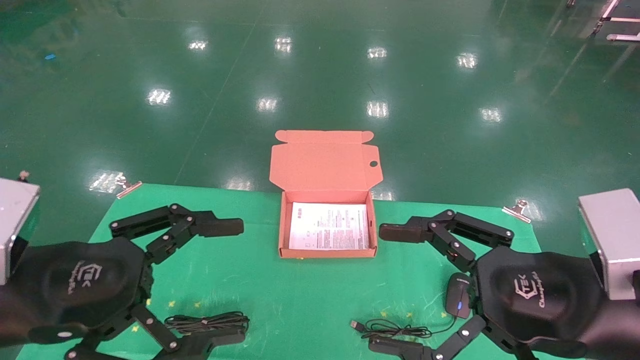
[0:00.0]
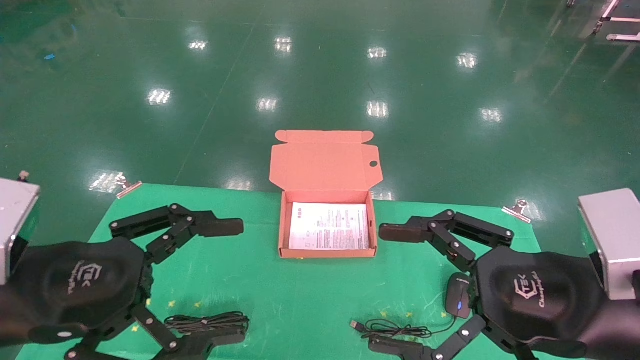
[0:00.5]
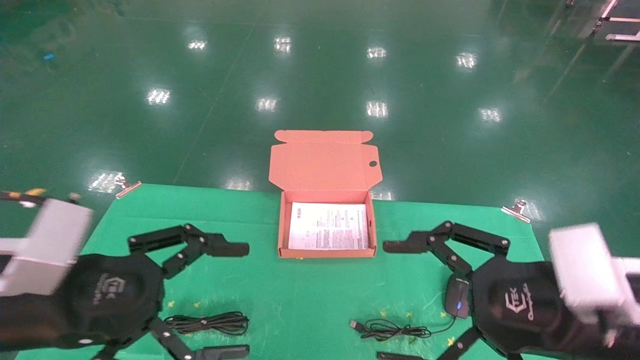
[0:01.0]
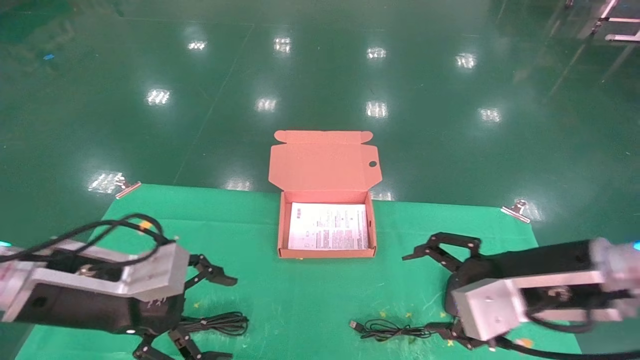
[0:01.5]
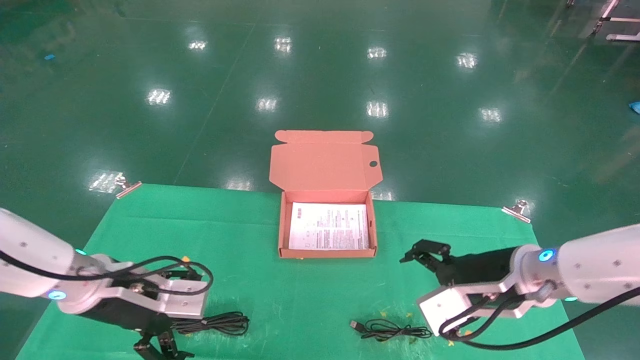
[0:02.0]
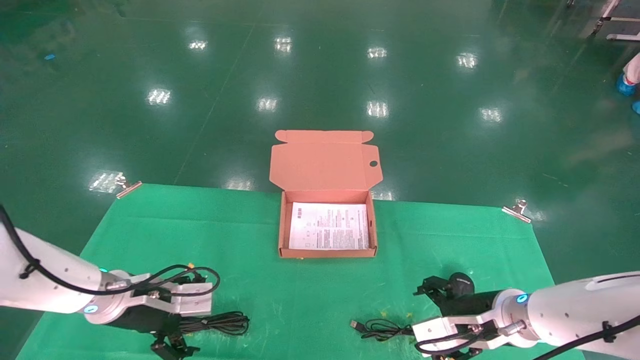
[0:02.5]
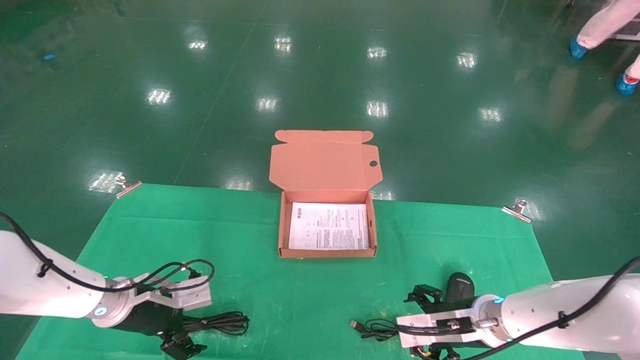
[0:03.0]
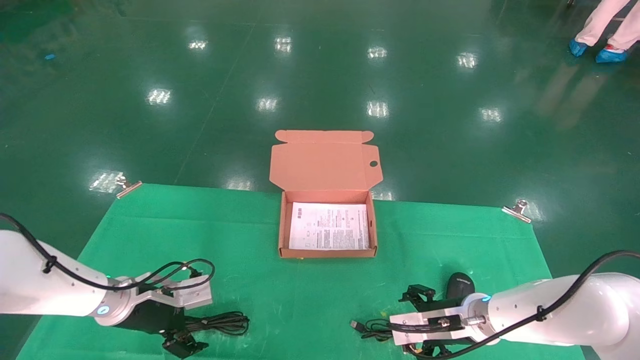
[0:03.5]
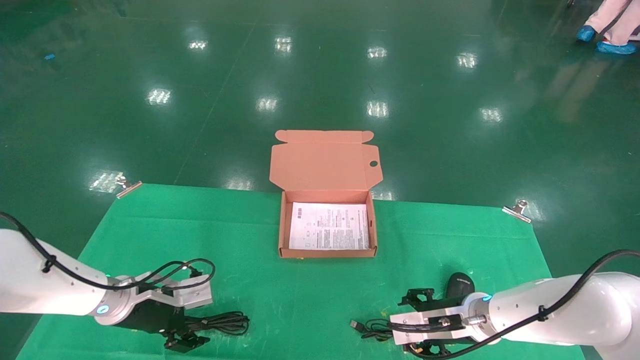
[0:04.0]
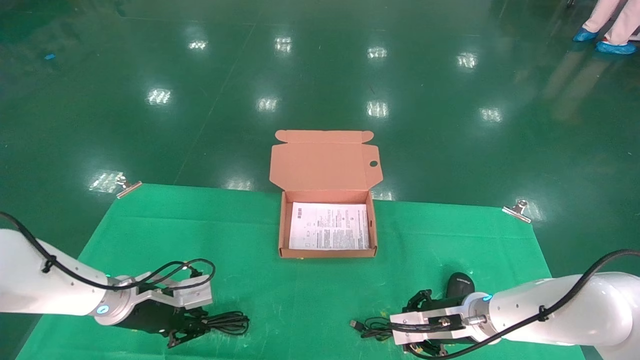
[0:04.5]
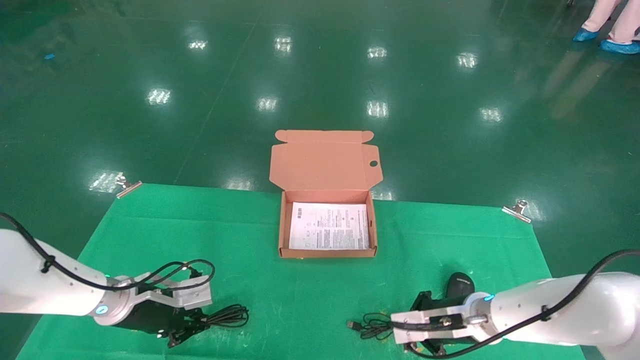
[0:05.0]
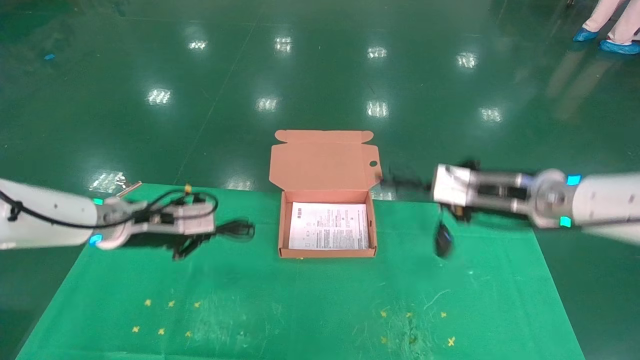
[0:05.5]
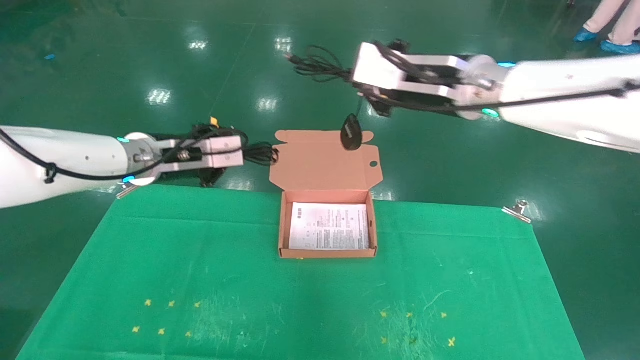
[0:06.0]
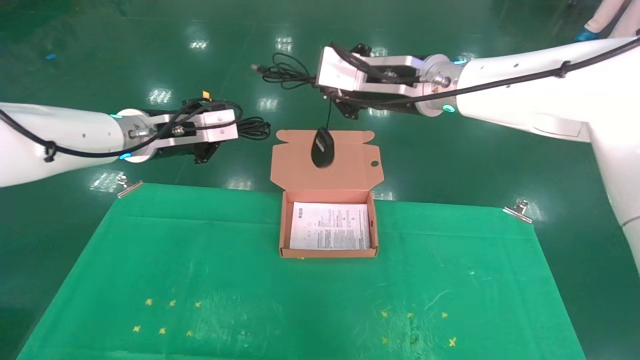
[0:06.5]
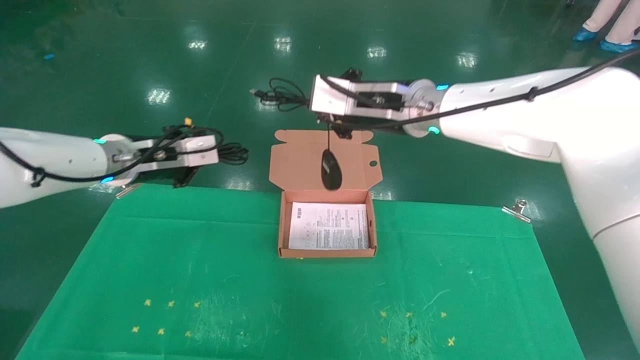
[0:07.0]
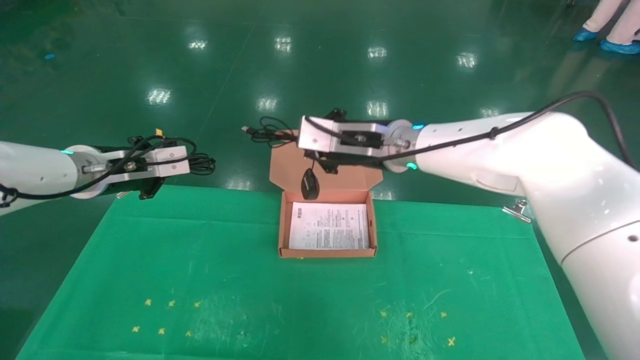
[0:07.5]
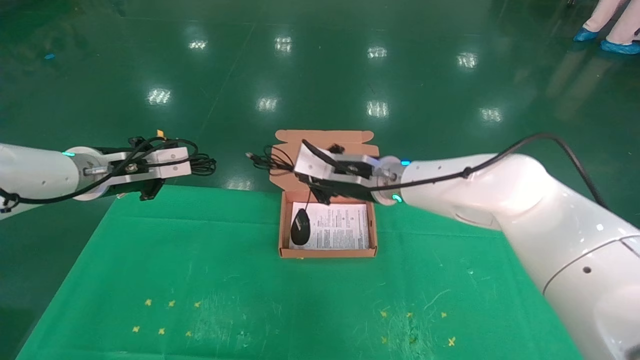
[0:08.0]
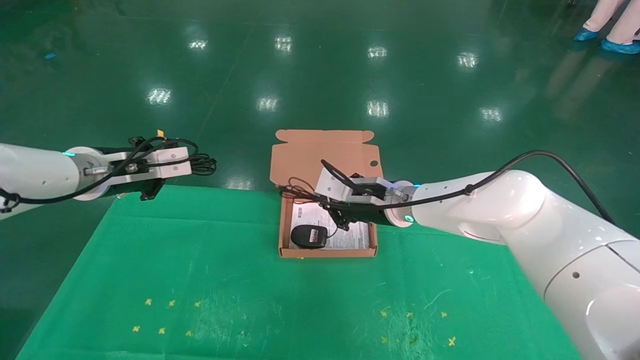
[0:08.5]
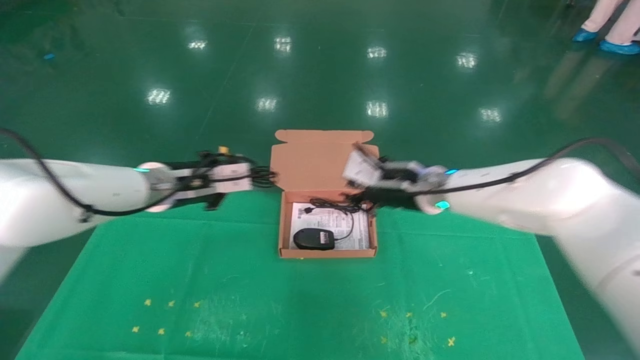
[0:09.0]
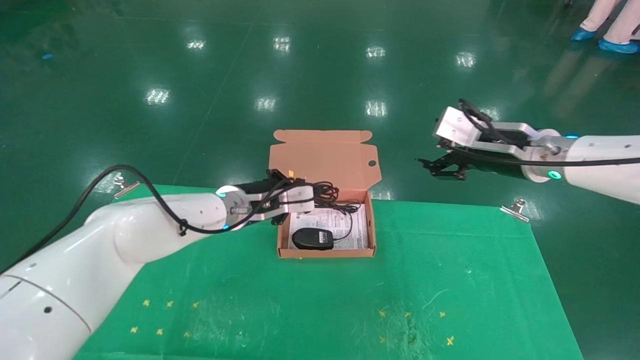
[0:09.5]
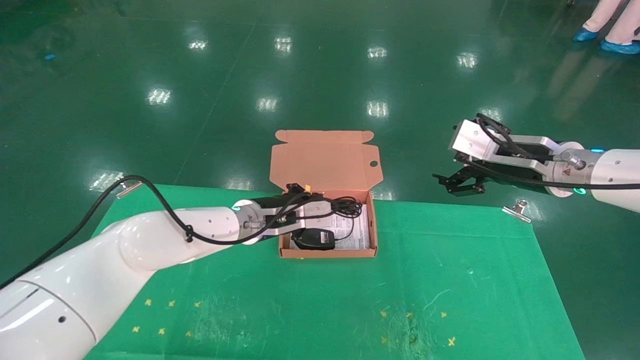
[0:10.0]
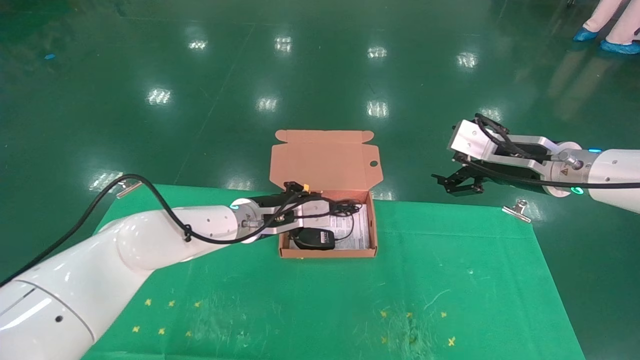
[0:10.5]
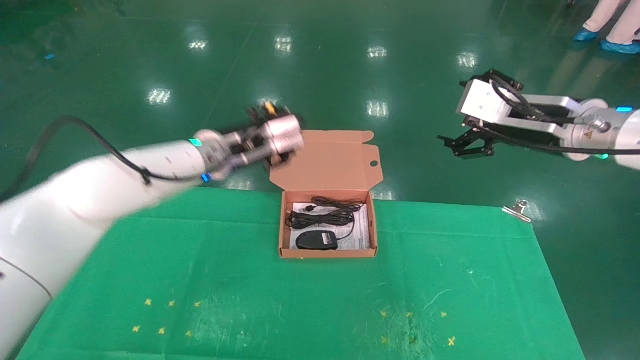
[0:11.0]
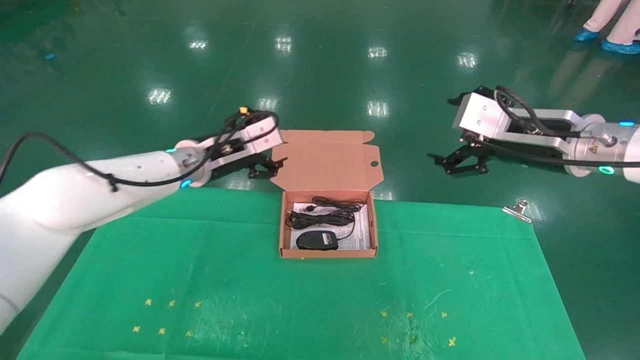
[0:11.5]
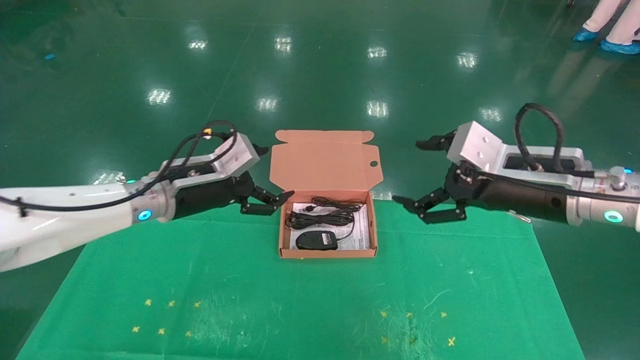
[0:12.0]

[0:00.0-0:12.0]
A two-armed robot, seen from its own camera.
Task of the whole recording: grasp data cable left put into box grasp mouse right put into box.
Step, 0:01.0 to 0:05.0: Grab and pick up both the mouse and power cord from the accessory packaging area at the same time.
Step, 0:05.5 to 0:10.5: Place the mouse and power cord into the box.
0:00.0 to 0:02.0: The grippers both shift forward and downward by about 15 cm.
0:02.0 to 0:04.0: The two grippers go roughly 15 cm downward and forward.
0:04.0 to 0:06.0: Both grippers travel together upward, about 25 cm. The right gripper closes up. Meanwhile the left gripper closes up.
0:06.0 to 0:08.0: The left gripper moves to the left, approximately 5 cm, while the right gripper goes approximately 15 cm downward, to the left and forward.
0:08.0 to 0:10.0: The right gripper shifts roughly 20 cm to the right, and opens; the left gripper is displaced to the right and downward by about 25 cm.
0:10.0 to 0:12.0: The right gripper heads backward, covering about 10 cm. Meanwhile the left gripper travels to the left, backward and upward by some 15 cm, and opens.

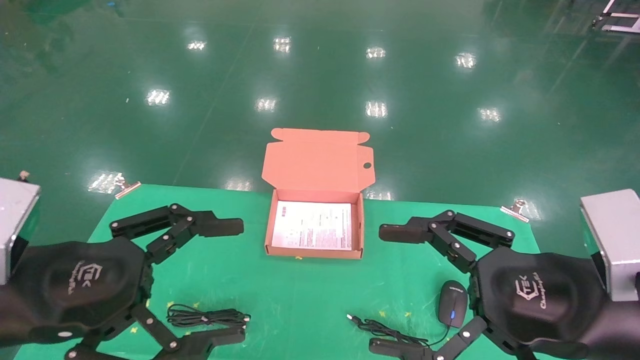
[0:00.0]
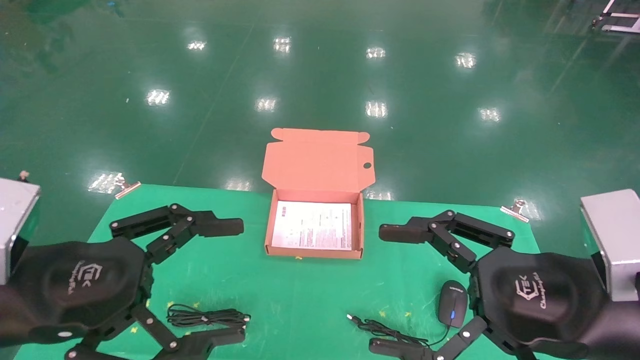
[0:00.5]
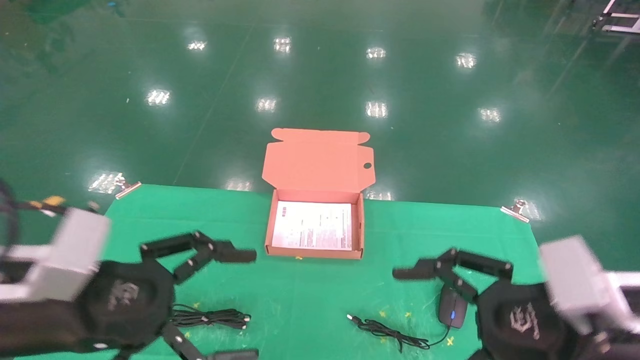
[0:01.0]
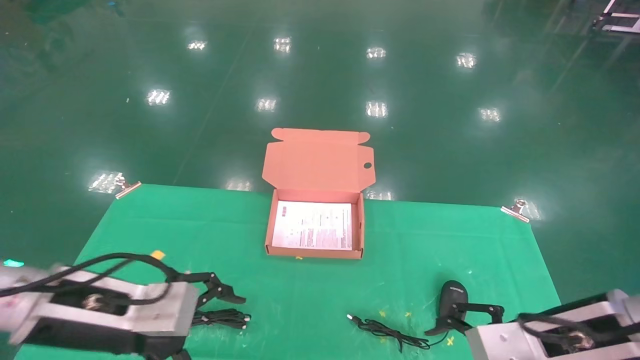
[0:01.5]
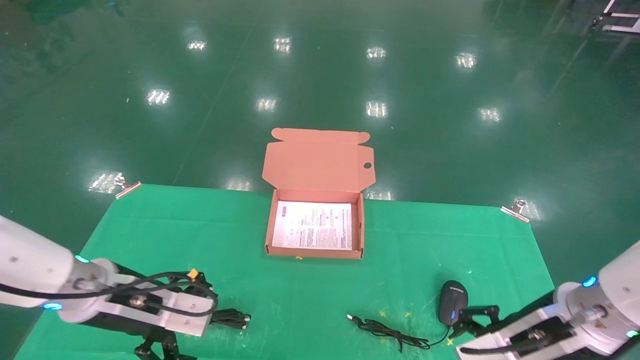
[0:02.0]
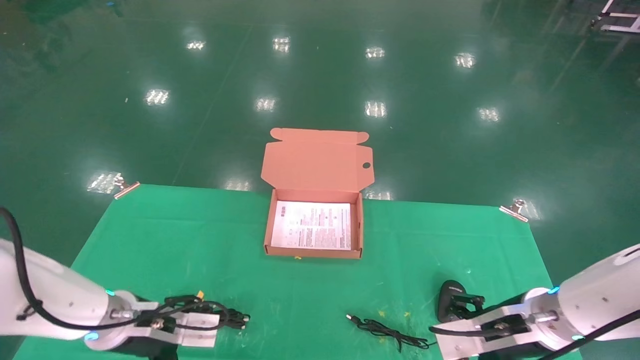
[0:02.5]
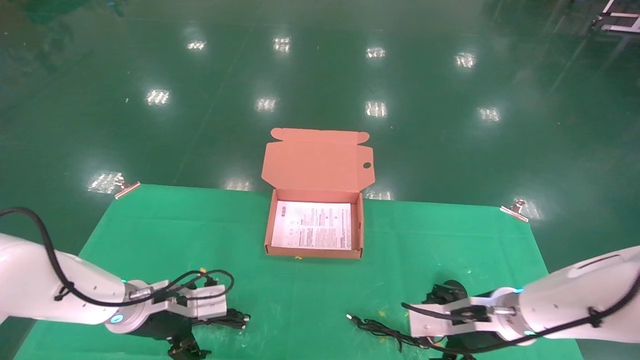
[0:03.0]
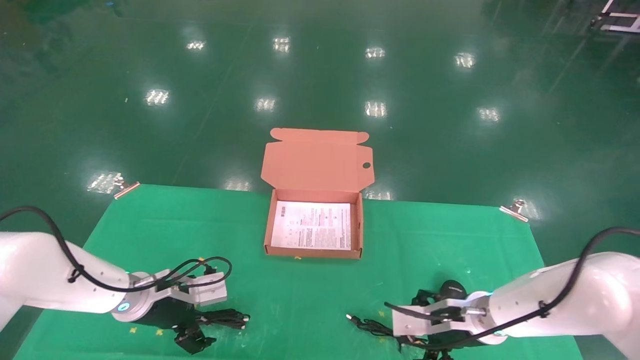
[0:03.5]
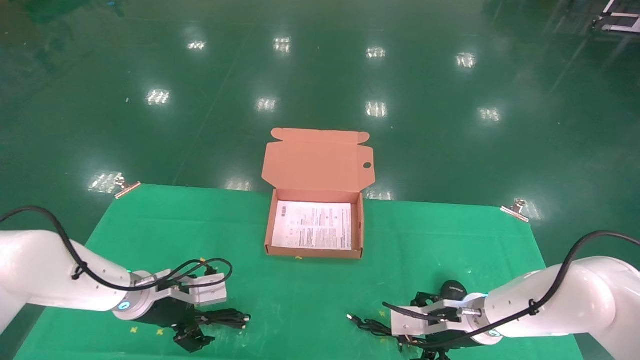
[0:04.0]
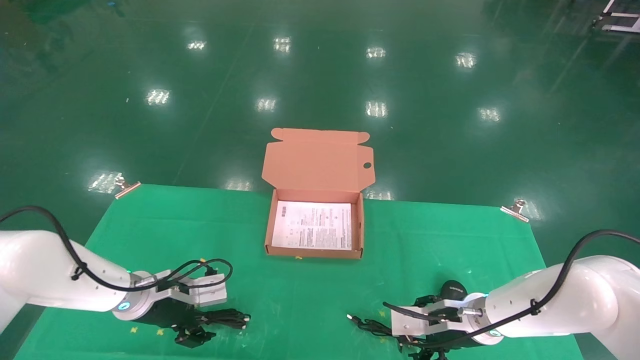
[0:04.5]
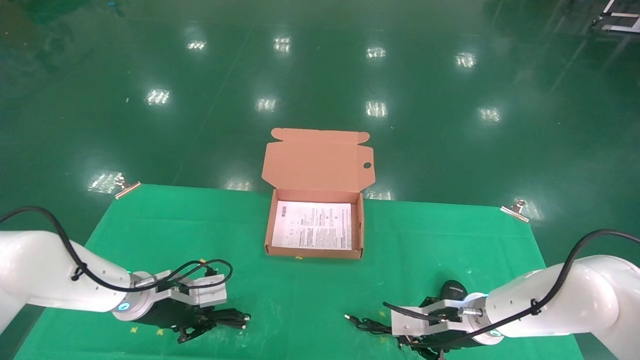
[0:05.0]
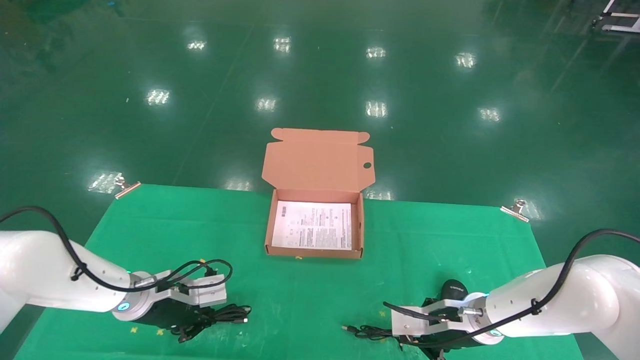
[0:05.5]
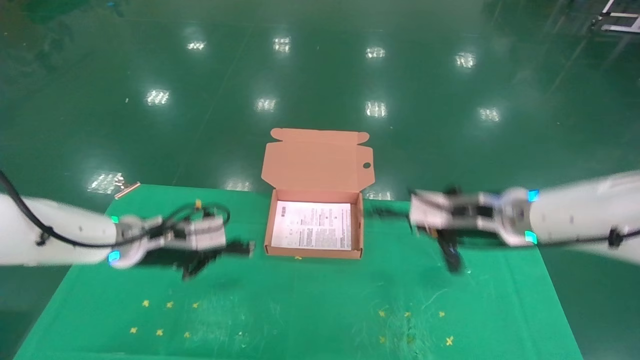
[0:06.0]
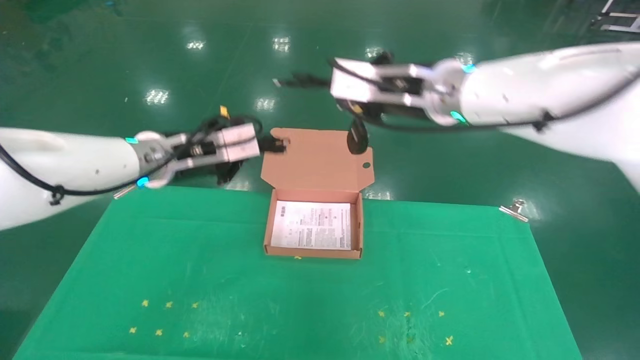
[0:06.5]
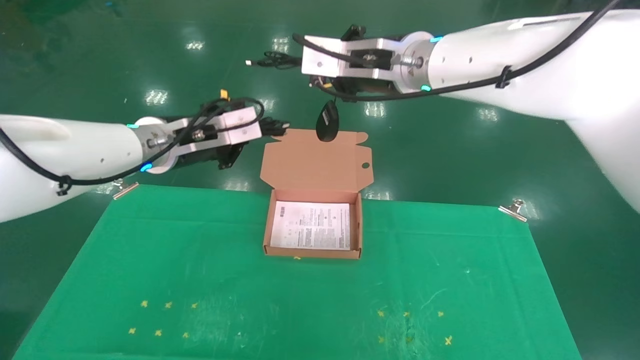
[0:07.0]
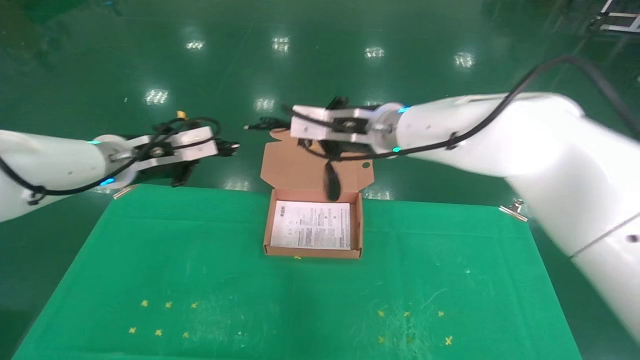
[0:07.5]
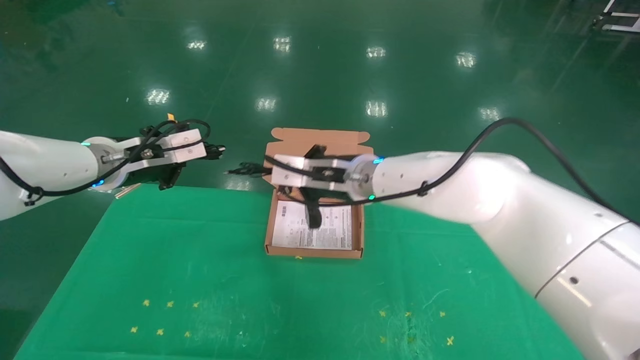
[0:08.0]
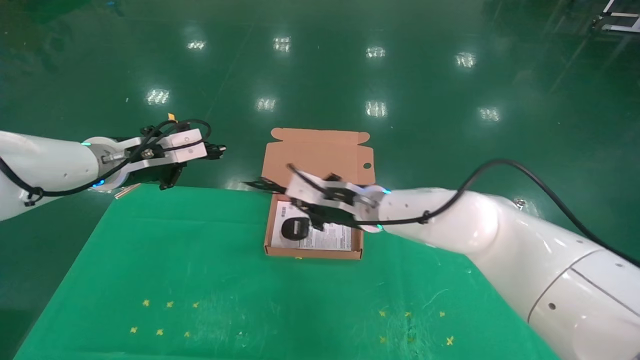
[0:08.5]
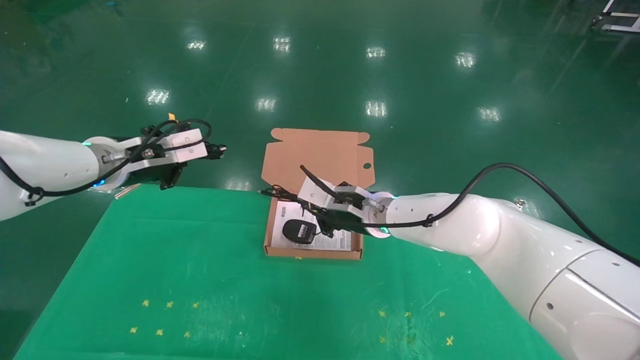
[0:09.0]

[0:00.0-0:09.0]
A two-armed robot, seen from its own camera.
Task of the whole recording: grasp data cable left put into box grasp mouse right put into box.
Step, 0:01.5 to 0:06.0: Grab and pick up both the mouse and power cord from the accessory packaging area at the same time.
0:00.0 to 0:02.0: Both grippers travel together forward and downward, about 10 cm.
0:02.0 to 0:04.5: The two grippers go some 15 cm forward and downward.
0:04.5 to 0:07.0: Both grippers travel together upward, some 30 cm. The right gripper closes its fingers. The left gripper closes its fingers.
0:07.0 to 0:09.0: The right gripper travels downward by approximately 20 cm; the left gripper shifts about 5 cm to the left.
